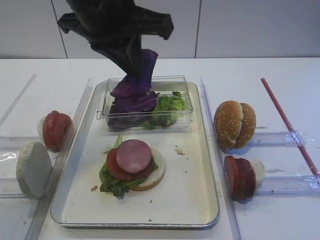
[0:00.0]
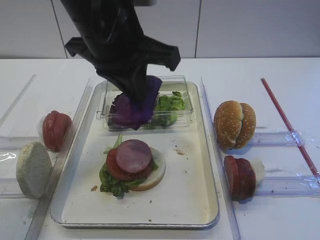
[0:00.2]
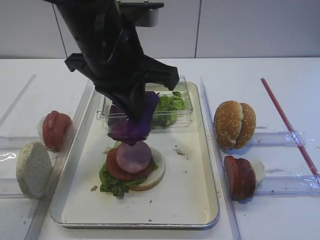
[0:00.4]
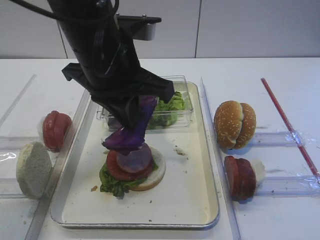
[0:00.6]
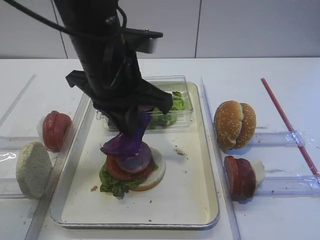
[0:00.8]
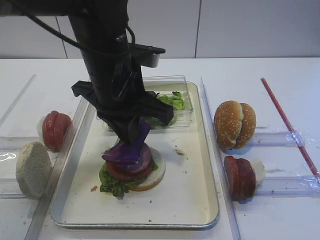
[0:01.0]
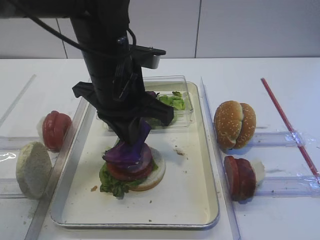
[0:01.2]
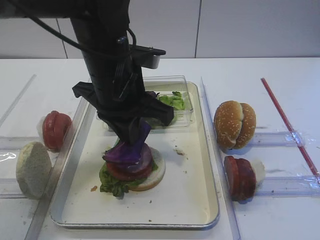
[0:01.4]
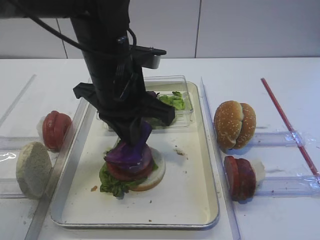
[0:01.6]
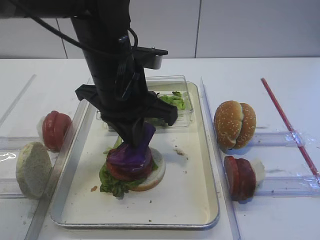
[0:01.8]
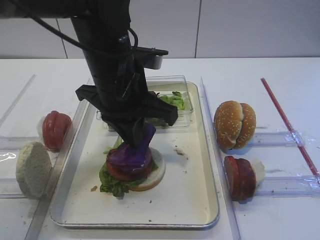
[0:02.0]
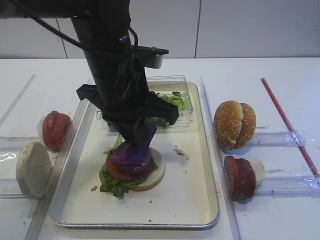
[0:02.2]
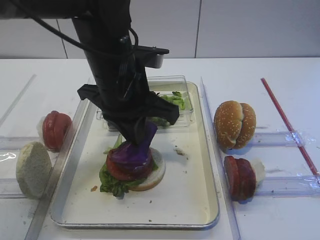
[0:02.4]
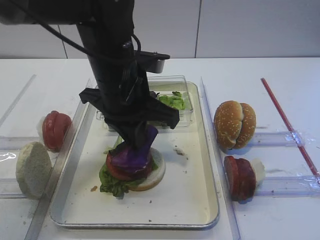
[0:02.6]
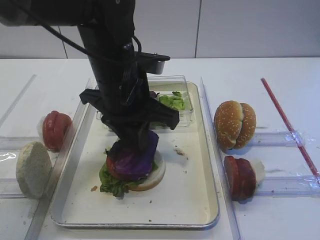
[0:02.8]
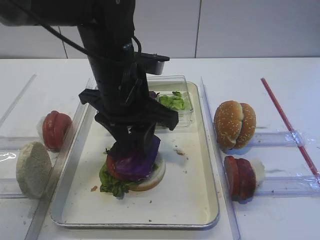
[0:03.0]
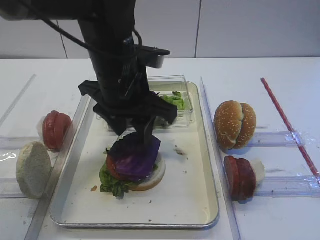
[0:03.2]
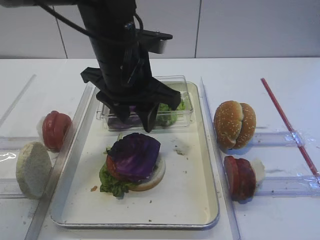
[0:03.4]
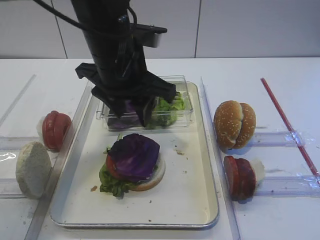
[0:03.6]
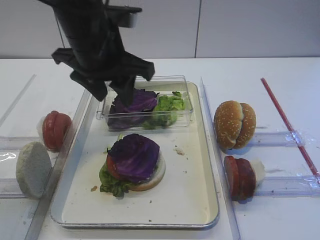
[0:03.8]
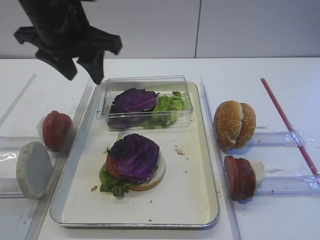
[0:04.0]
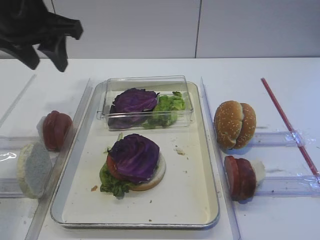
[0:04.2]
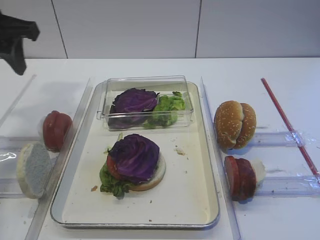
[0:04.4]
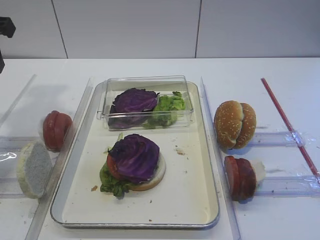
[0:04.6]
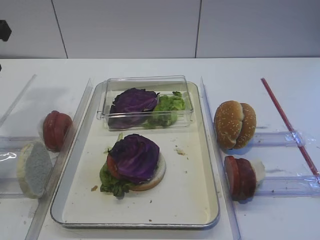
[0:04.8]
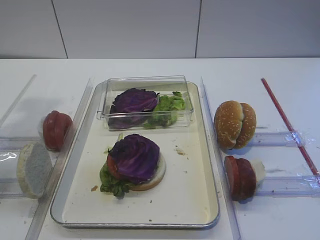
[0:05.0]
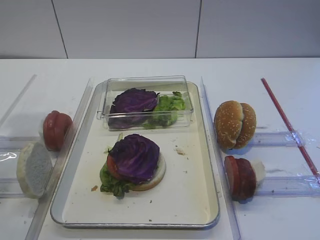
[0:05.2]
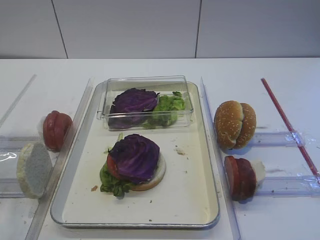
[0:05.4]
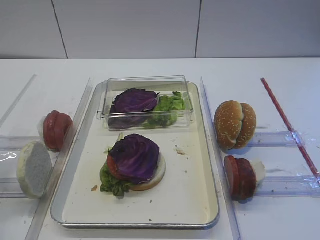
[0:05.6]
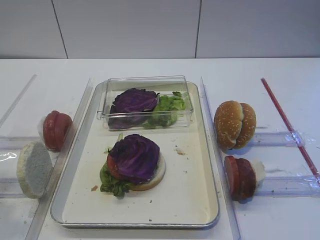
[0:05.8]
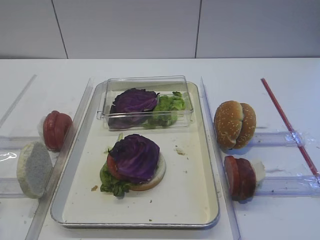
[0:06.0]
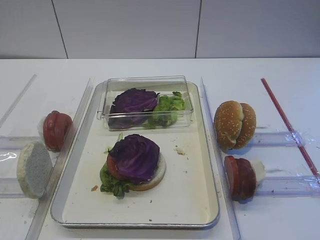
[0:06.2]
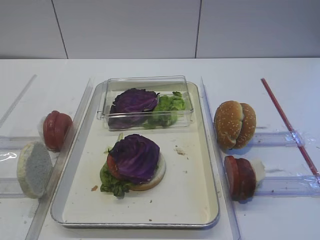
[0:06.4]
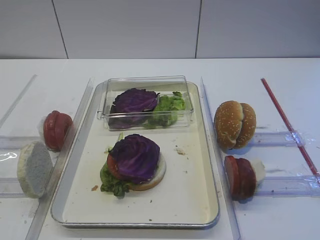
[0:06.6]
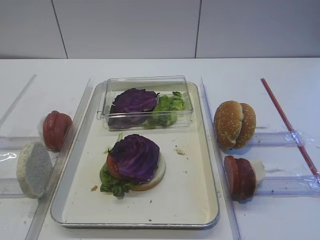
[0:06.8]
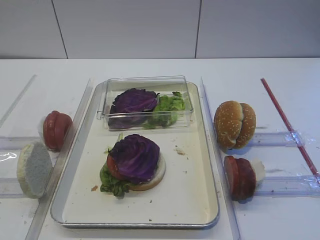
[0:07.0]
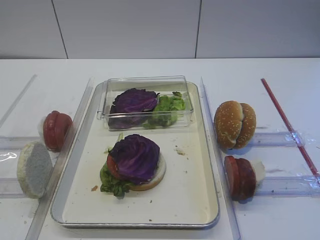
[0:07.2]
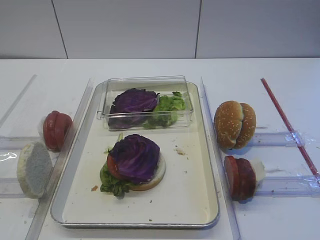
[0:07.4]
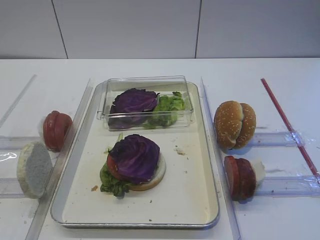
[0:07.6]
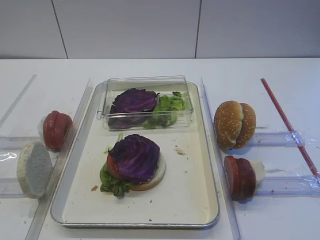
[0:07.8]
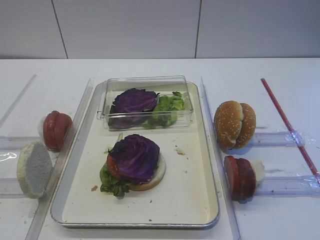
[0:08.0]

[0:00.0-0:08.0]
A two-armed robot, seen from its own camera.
Step, 0:00.0 to 0:03.6: Place the purple cabbage on the cutlet with the left gripper.
0:00.0 to 0:01.6: The left gripper shifts some 10 cm downward.
0:01.6 to 0:03.2: The left gripper opens up.
0:03.2 to 0:04.8: The left gripper moves to the left, some 20 cm.
0:04.8 to 0:06.4: The left gripper travels backward by about 30 cm.

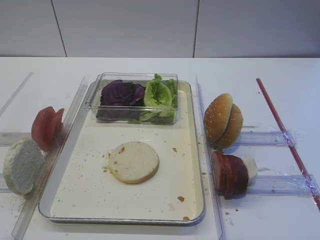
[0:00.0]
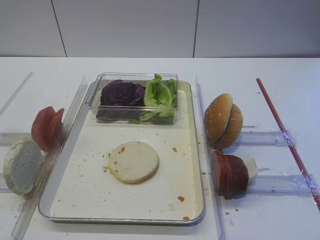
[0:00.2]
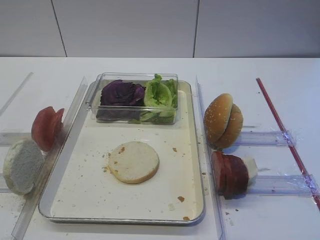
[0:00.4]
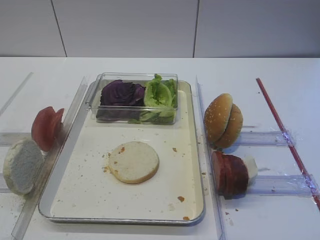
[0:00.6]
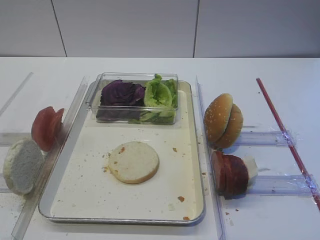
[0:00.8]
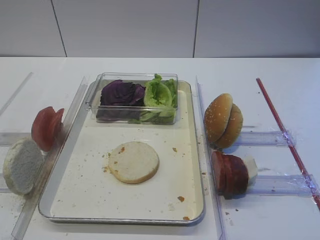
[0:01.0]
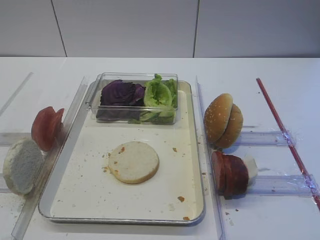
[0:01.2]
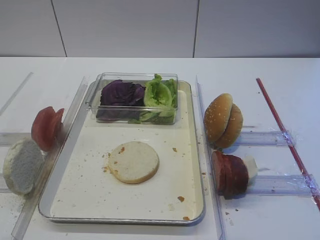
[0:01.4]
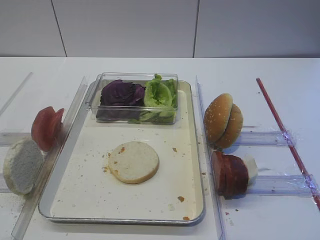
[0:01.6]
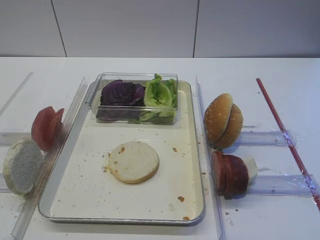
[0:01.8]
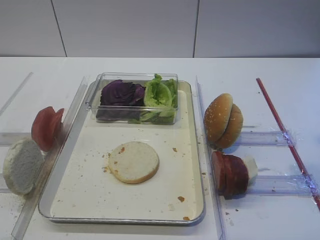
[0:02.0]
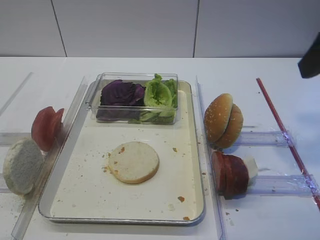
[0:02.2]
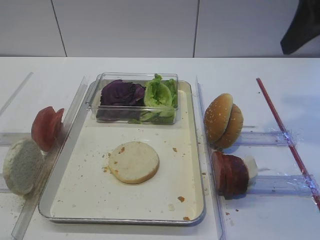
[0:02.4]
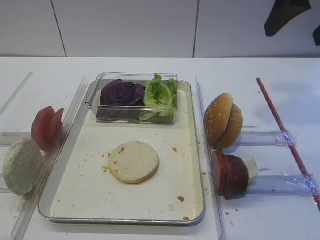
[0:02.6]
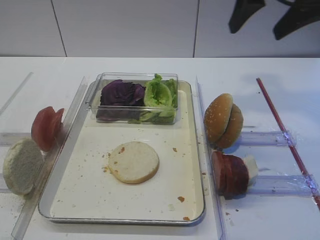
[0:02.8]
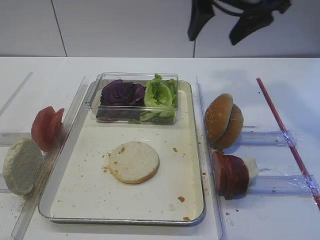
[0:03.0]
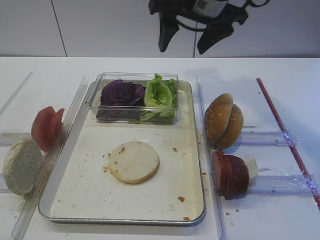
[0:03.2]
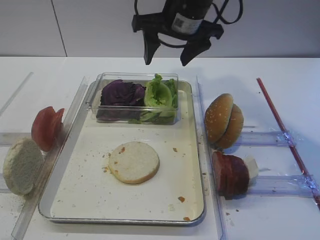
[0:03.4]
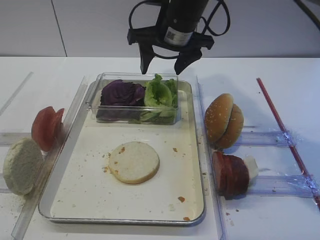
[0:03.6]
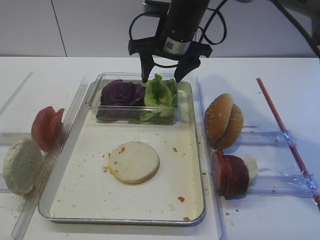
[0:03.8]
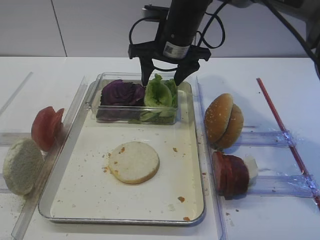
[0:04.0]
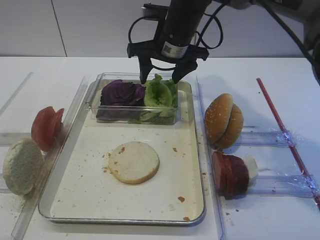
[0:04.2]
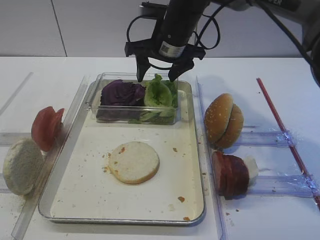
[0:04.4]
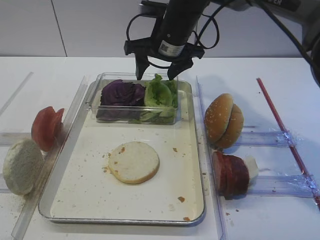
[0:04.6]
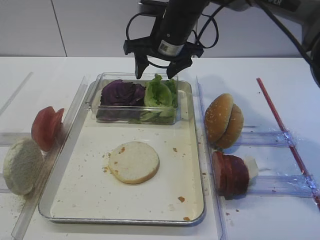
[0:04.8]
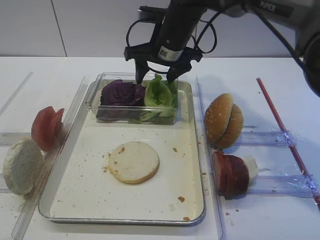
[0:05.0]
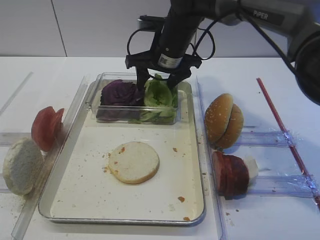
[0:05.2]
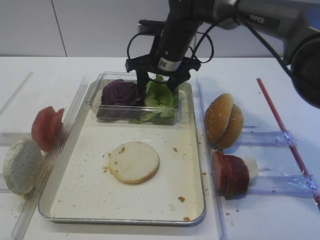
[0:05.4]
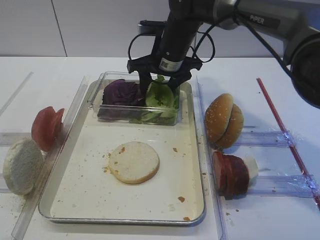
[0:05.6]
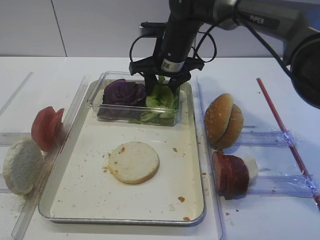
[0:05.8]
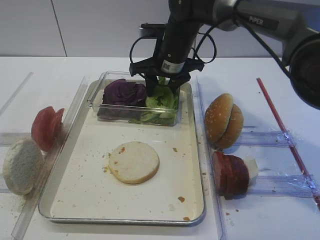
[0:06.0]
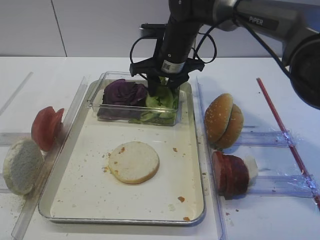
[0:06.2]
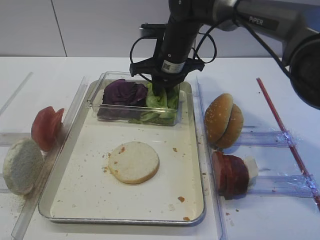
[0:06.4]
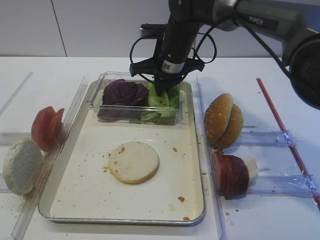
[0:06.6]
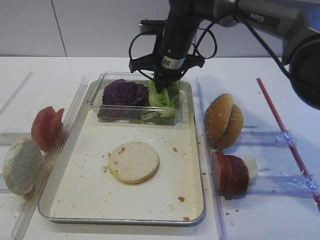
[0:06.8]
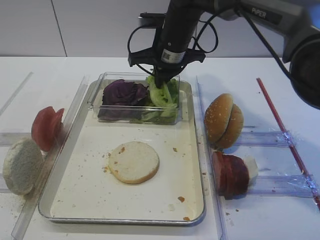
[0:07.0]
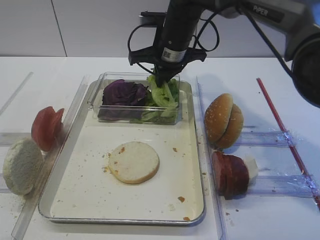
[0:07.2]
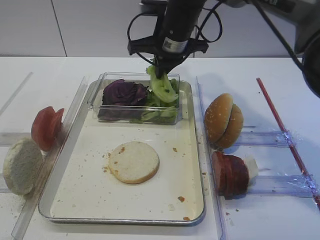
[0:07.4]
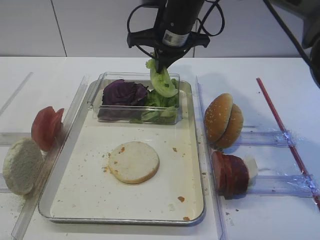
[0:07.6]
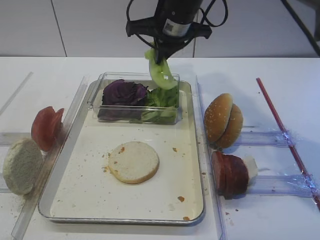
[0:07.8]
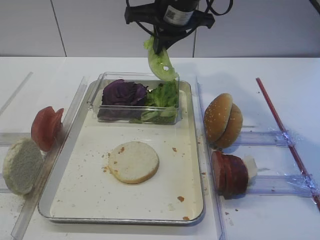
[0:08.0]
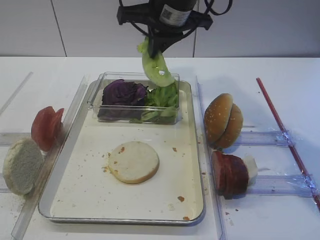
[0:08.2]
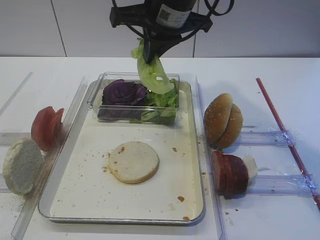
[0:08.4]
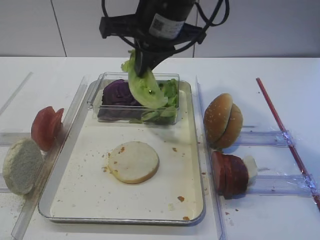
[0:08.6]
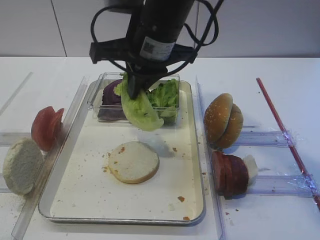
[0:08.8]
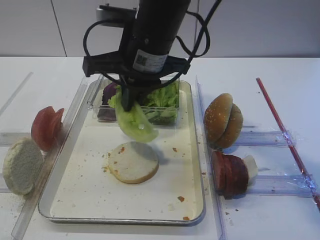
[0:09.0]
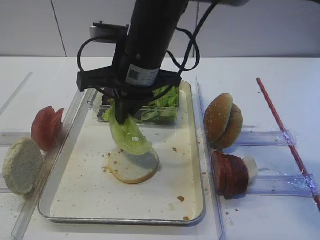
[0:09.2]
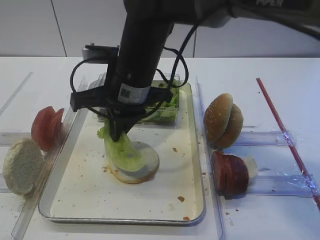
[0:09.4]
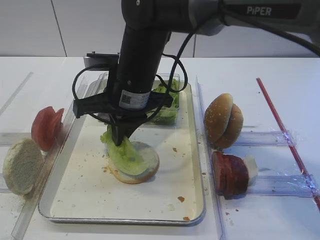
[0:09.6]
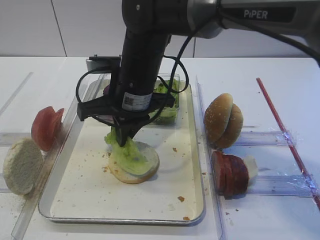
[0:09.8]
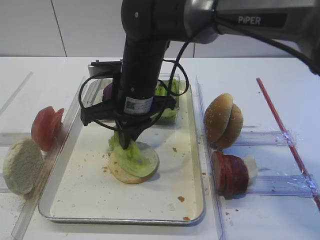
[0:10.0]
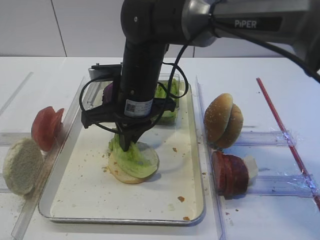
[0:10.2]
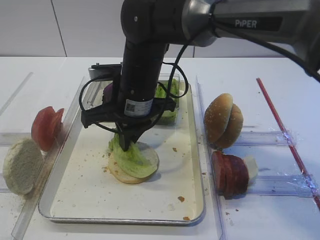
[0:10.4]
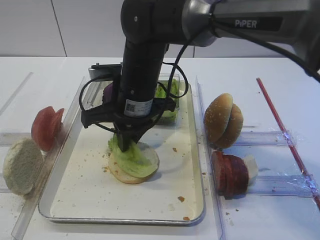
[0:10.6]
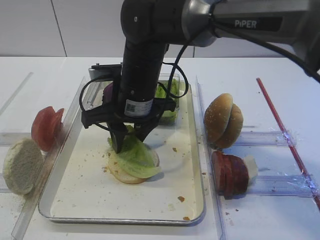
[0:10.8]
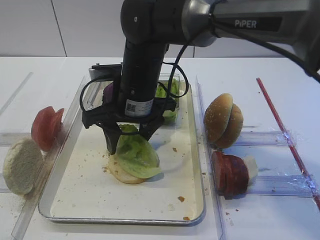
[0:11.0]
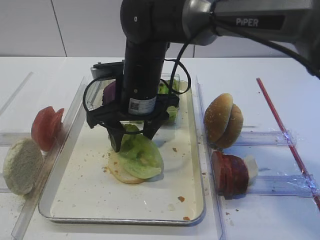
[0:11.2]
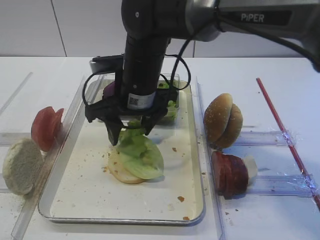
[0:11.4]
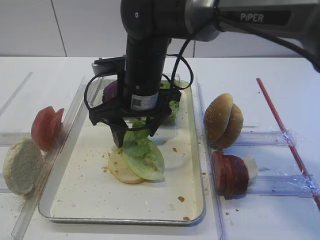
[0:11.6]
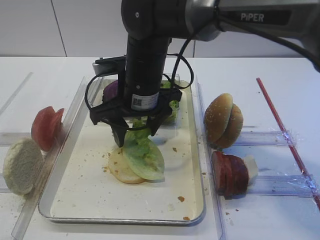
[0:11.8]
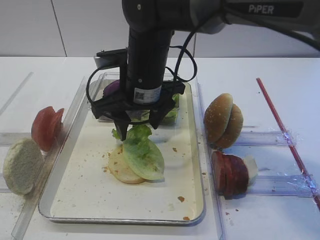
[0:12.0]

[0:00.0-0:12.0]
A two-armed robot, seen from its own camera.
Step, 0:00.0 to 0:07.4: Pick up the lettuce leaf with the right gripper.
0:01.6 to 0:03.0: The right gripper is displaced forward and to the left by approximately 30 cm.
0:03.0 to 0:04.4: The right gripper shifts about 20 cm downward, to the left and forward.
0:04.4 to 0:06.0: The grippers move only a little.
0:06.0 to 0:07.6: The right gripper moves upward, approximately 5 cm, and closes up.
0:07.6 to 0:09.0: The right gripper moves backward, about 10 cm.
0:09.0 to 0:10.4: The right gripper heads downward, covering some 10 cm.
0:10.4 to 0:12.0: The right gripper opens up.

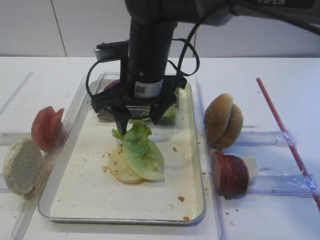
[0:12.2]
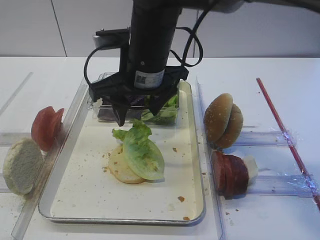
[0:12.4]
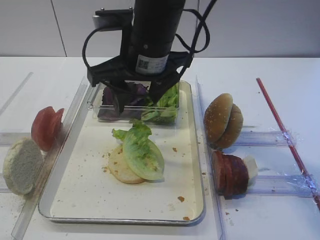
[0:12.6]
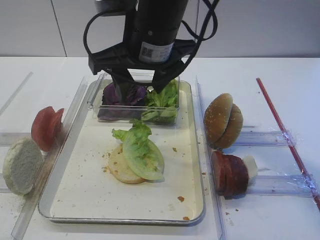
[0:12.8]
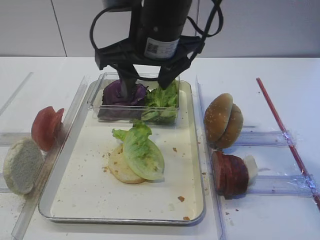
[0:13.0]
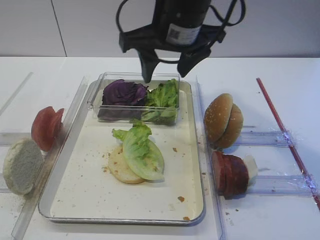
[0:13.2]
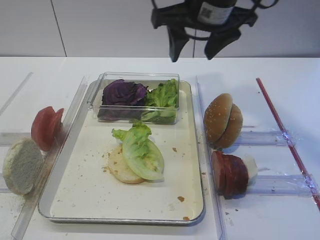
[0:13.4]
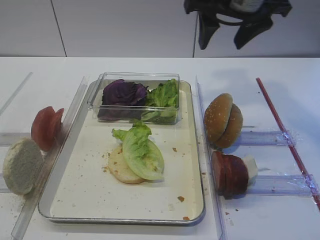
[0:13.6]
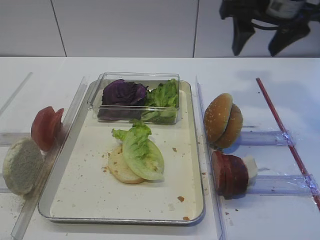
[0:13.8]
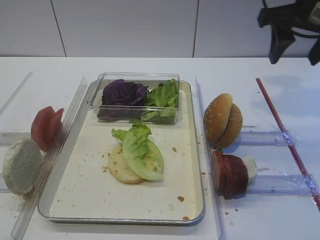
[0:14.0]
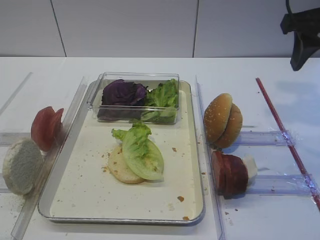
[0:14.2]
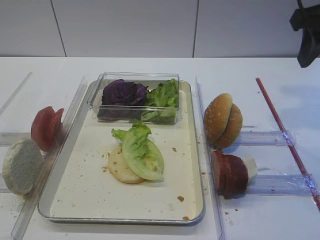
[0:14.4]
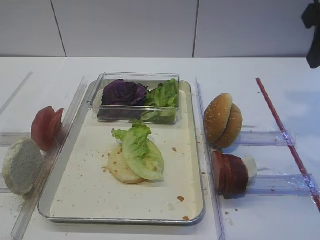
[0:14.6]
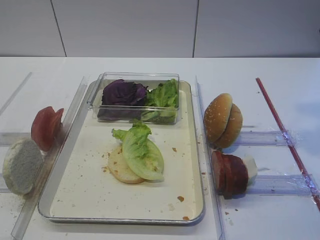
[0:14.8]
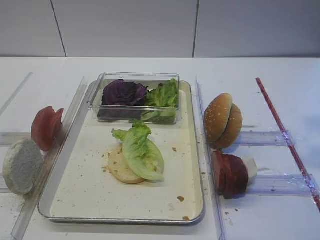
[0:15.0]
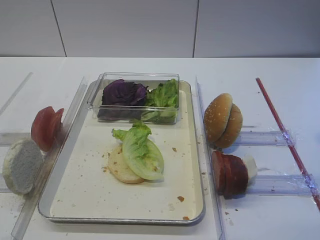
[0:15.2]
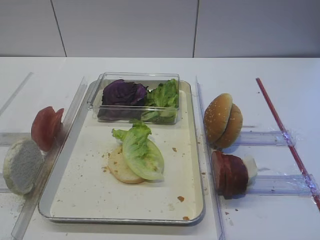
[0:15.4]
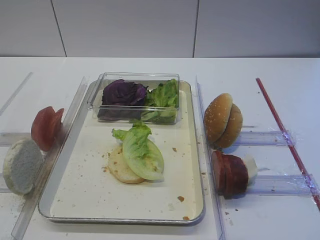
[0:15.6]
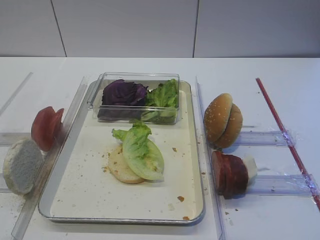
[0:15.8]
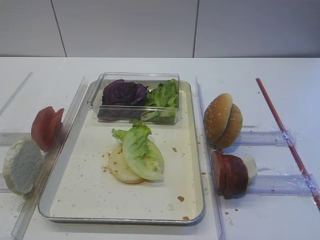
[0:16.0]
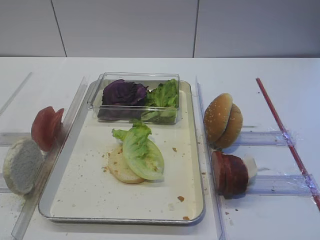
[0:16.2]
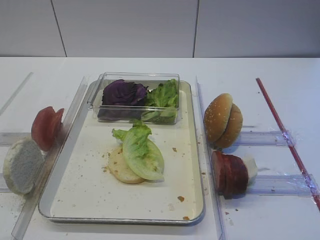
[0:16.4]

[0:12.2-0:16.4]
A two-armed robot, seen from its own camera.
0:12.2 to 0:13.6: The right gripper moves to the right and upward, approximately 15 cm.
0:13.6 to 0:15.0: The right gripper travels backward and to the right by about 20 cm.
